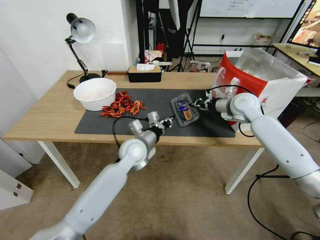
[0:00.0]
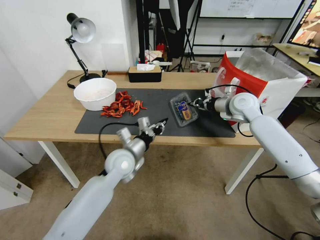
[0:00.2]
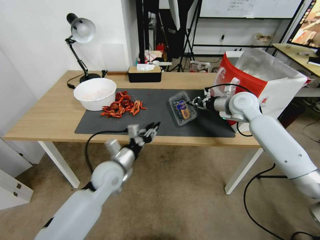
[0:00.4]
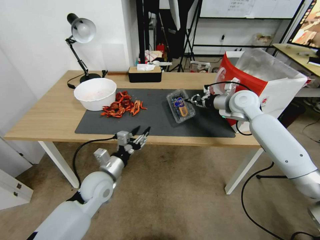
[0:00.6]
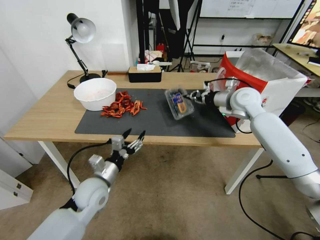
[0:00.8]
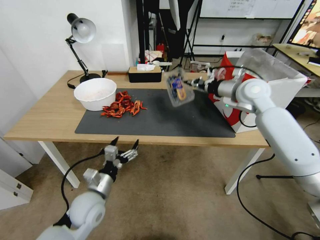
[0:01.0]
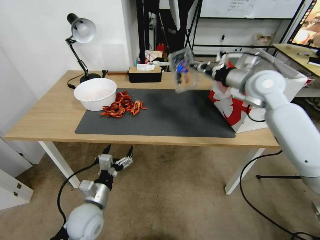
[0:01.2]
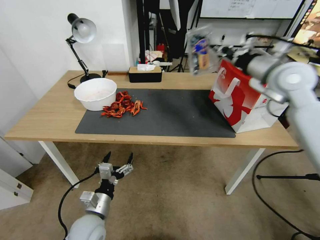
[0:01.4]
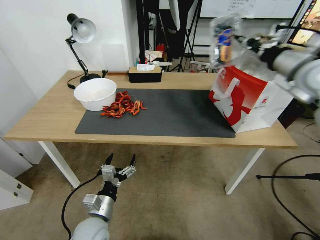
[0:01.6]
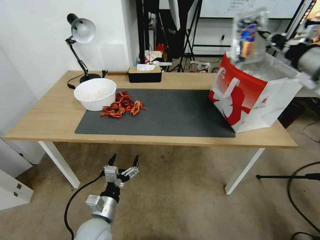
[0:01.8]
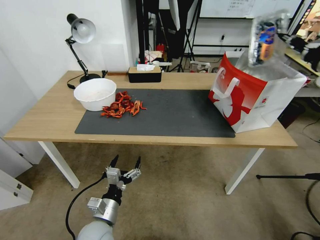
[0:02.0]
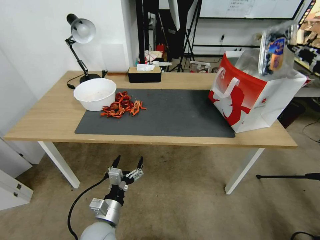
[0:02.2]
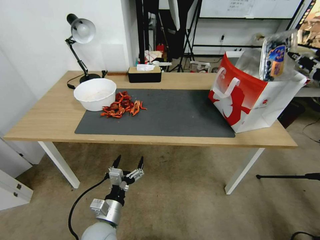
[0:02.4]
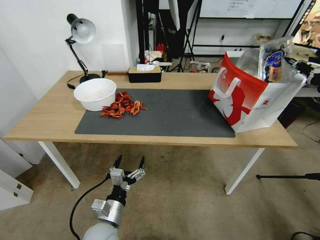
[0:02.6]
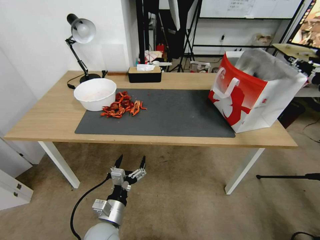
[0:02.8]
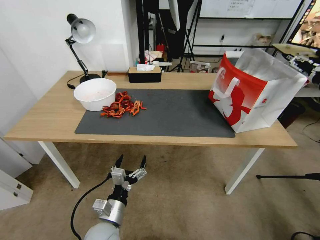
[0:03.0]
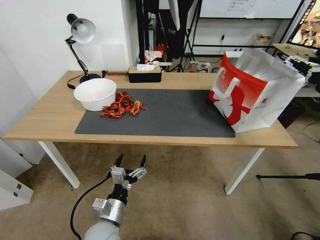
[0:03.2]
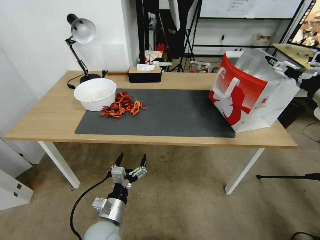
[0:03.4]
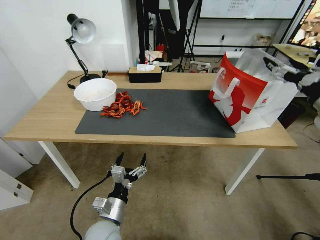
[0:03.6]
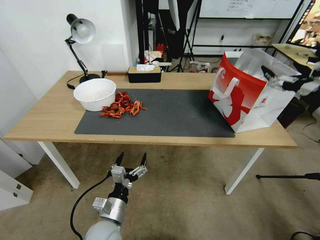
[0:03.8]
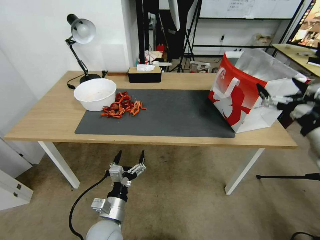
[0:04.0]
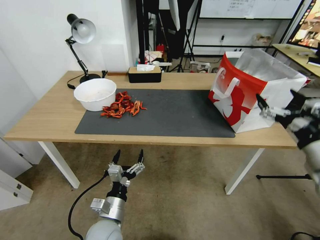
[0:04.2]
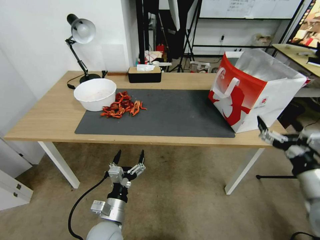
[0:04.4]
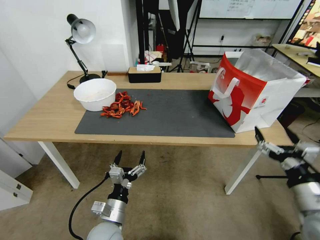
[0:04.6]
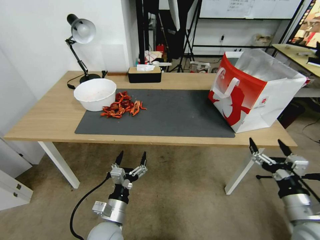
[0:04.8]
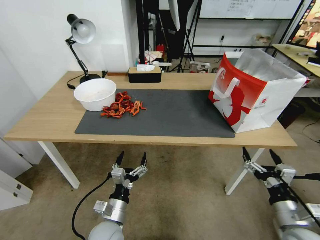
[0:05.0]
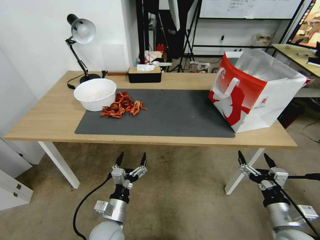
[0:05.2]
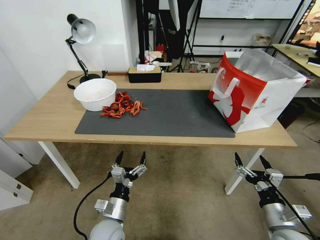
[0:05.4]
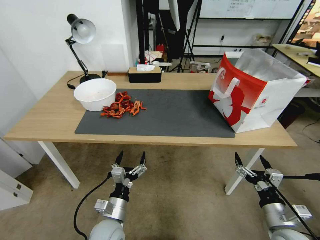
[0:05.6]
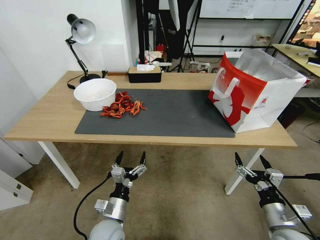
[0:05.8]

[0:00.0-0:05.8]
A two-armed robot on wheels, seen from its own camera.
Task of the whole recording: Close the takeout container lid, then place the container into the takeout bag.
0:00.0 to 0:01.4: The right gripper is displaced upward and backward by approximately 15 cm; the left gripper travels backward, to the left and downward by approximately 25 cm, and opens its fingers.
0:01.4 to 0:02.8: The left gripper moves about 5 cm. The right gripper travels to the right and backward by roughly 20 cm.
0:02.8 to 0:04.4: The right gripper heads backward, downward and to the left, covering about 25 cm, and opens up.
0:04.4 to 0:05.8: The right gripper moves downward, about 15 cm.
